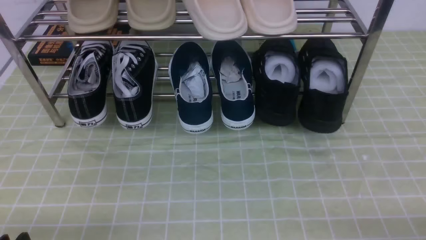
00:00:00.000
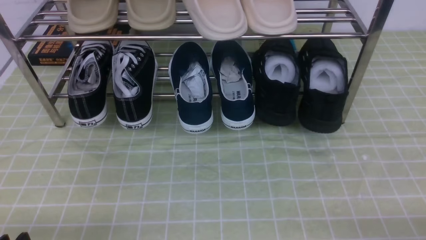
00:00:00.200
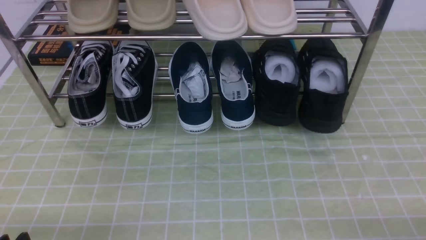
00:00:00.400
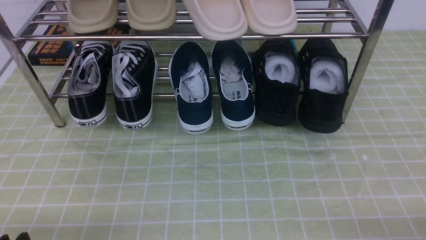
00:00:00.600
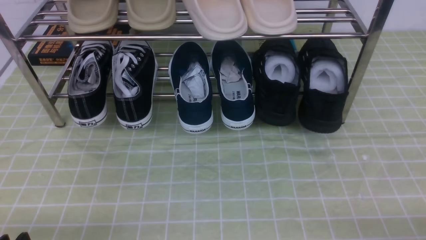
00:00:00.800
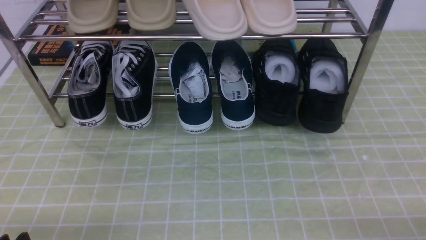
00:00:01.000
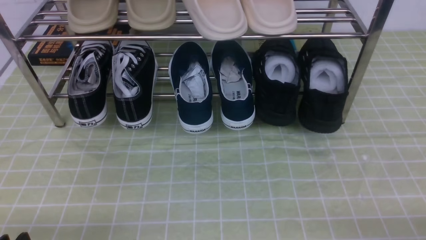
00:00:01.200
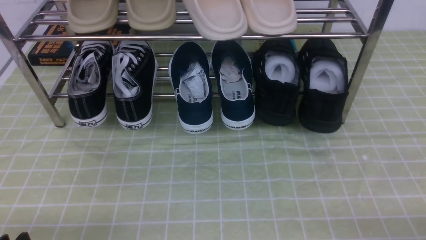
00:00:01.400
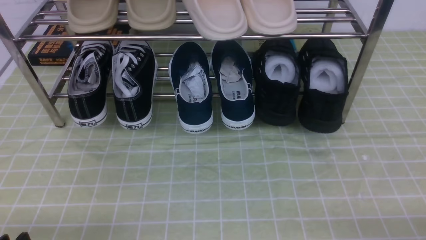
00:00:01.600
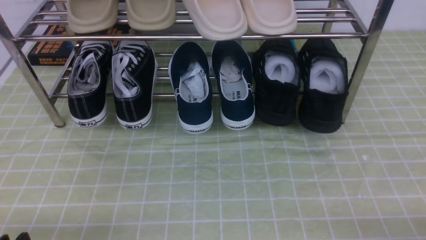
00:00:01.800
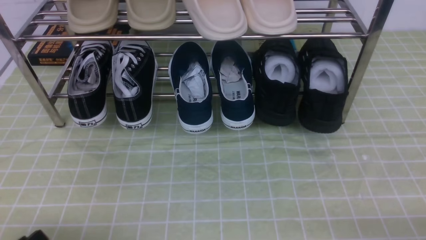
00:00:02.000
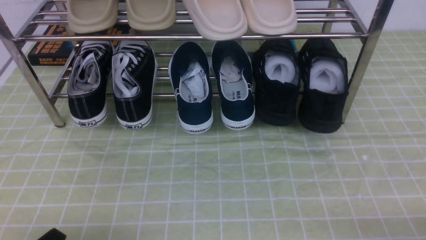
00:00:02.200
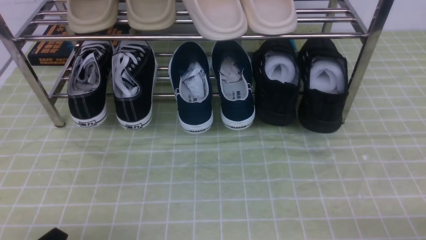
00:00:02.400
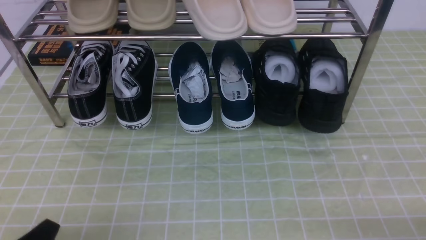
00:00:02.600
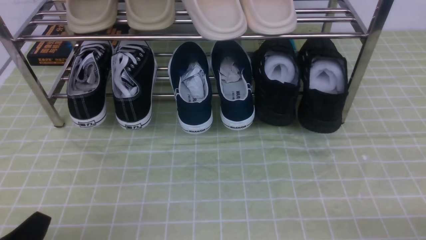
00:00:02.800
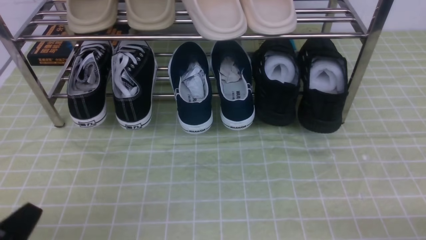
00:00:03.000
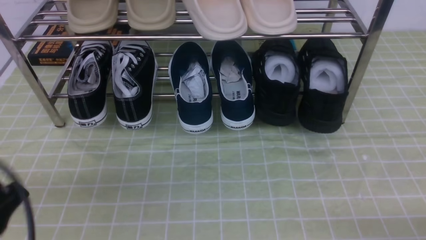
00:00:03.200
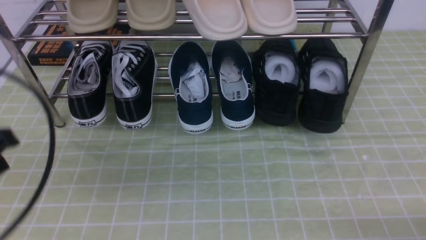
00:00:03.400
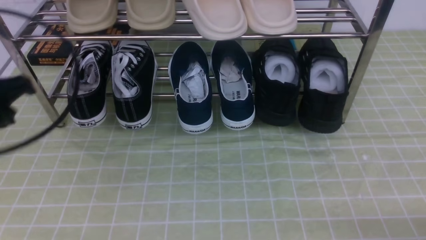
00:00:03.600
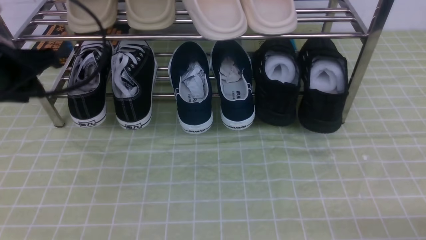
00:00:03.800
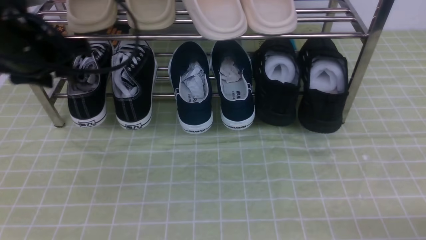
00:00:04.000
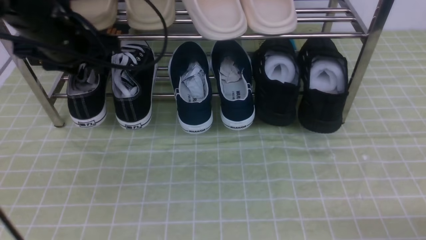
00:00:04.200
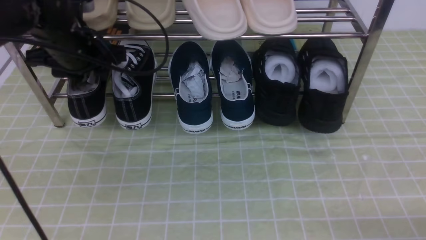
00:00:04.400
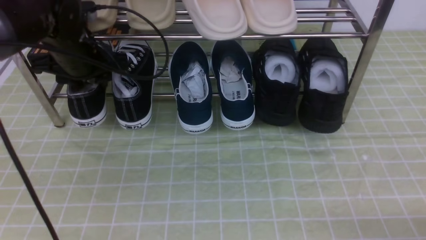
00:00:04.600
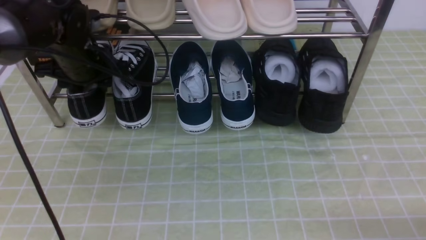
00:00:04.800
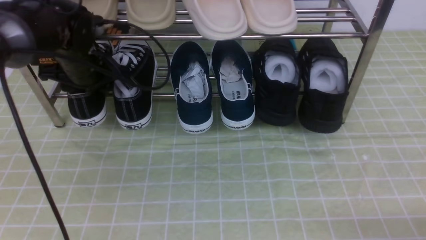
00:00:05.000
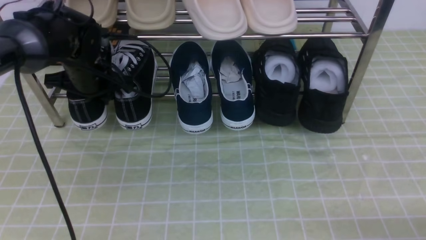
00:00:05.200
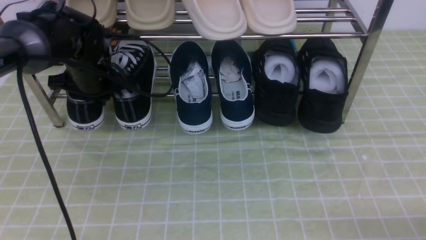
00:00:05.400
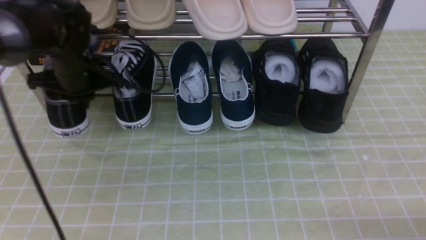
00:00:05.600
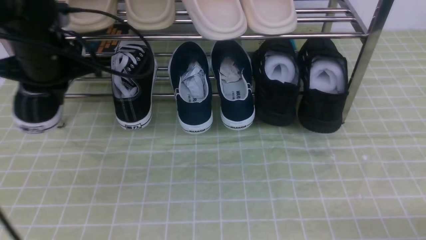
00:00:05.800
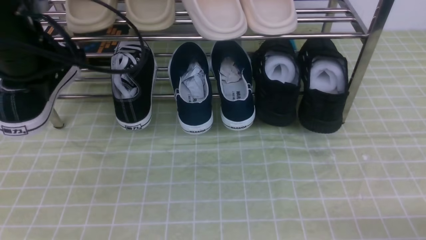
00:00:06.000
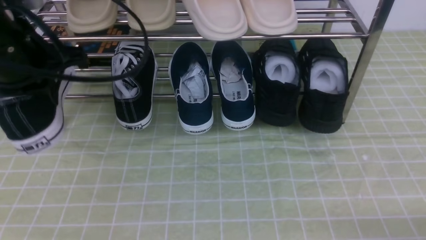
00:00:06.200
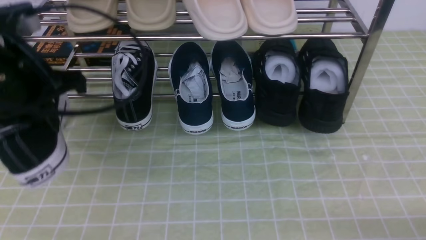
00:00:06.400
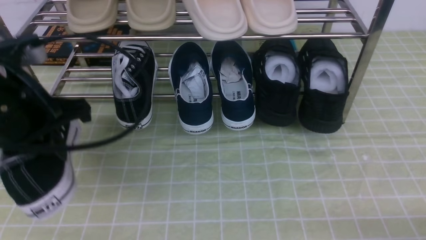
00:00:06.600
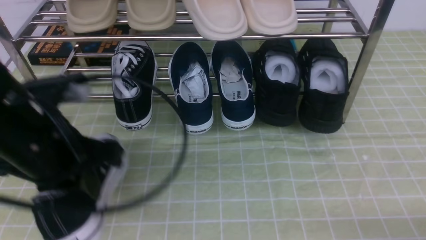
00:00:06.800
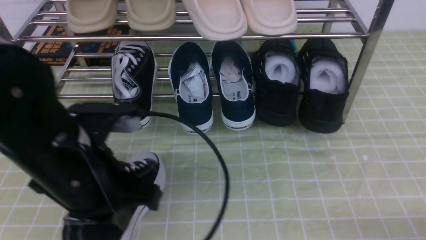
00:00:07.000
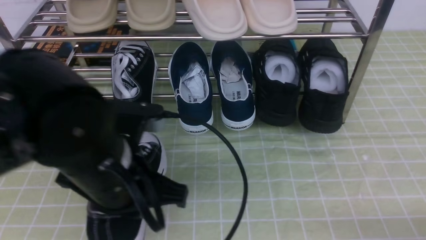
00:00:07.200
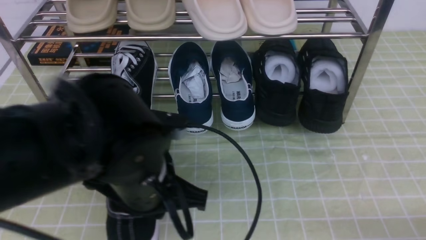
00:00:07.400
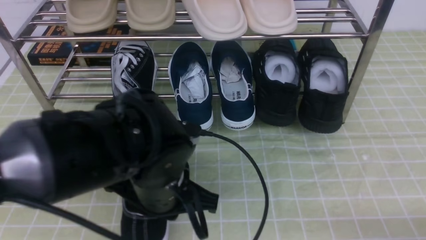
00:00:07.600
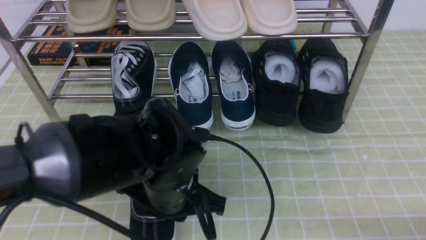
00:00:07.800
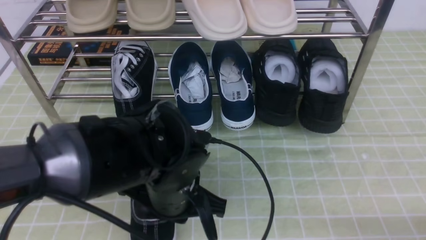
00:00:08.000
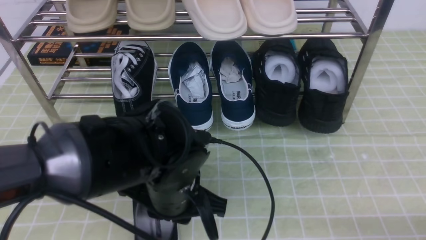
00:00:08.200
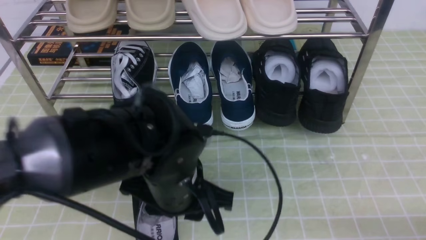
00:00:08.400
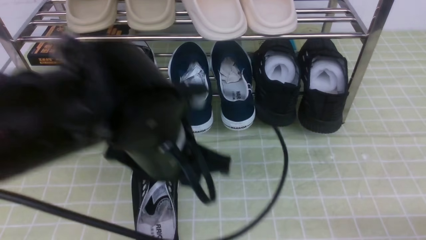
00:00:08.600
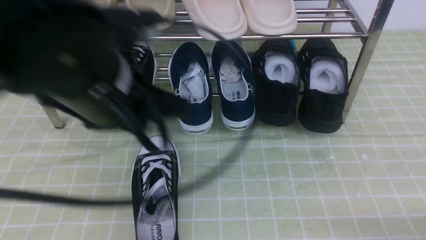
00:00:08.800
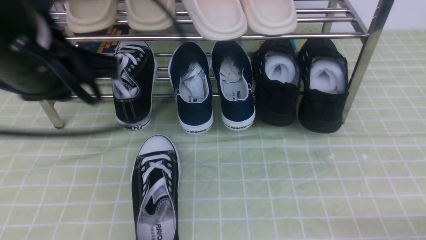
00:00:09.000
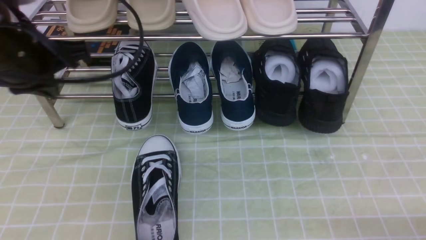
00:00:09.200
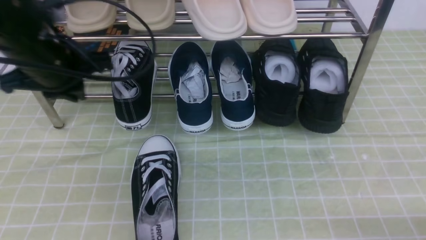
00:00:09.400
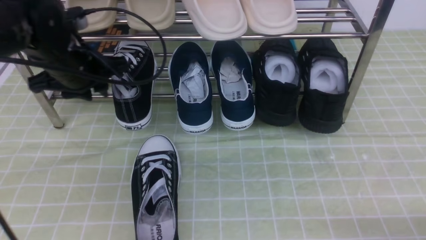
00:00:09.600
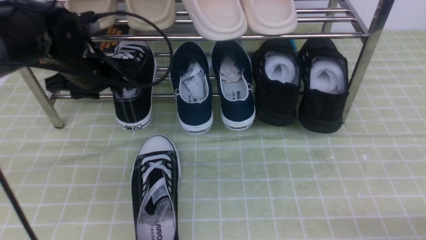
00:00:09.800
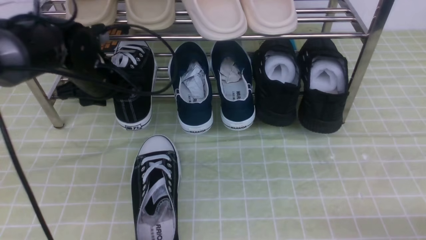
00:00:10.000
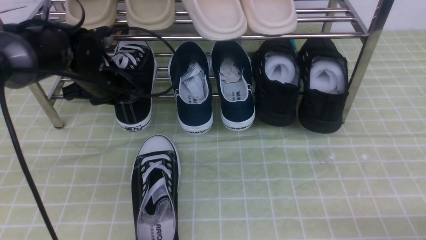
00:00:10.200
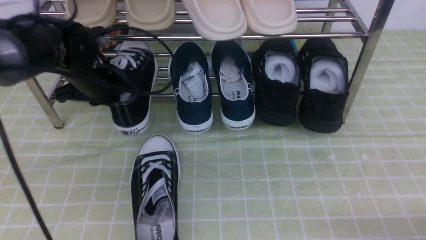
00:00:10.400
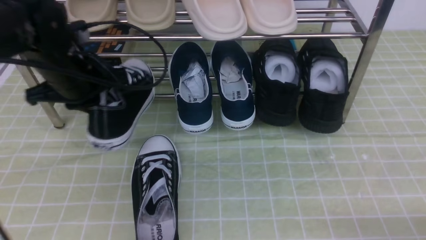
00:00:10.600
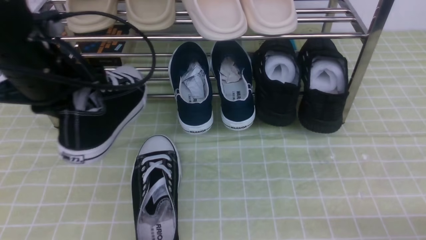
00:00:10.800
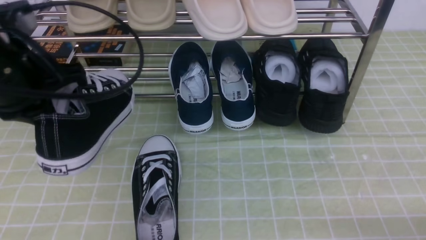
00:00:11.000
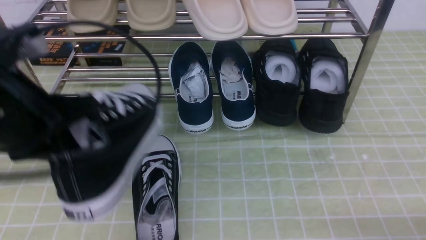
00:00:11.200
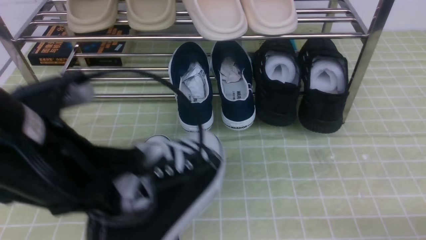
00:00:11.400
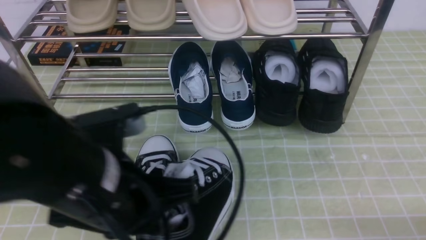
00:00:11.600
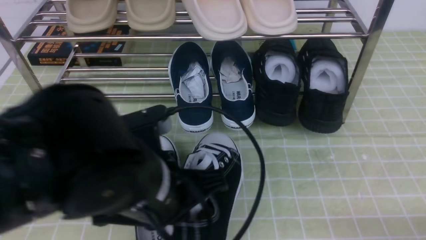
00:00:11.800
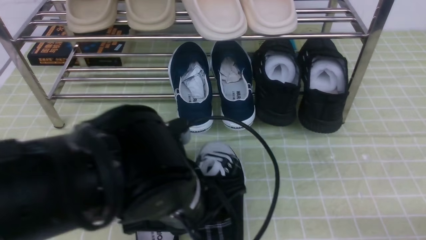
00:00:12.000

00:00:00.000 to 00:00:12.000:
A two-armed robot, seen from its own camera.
Step, 00:00:00.000 to 00:00:05.400: use the left arm to clamp a shoe on the left side of the shoe rack.
Step, 00:00:05.600 to 00:00:08.400: Use your left arm to remove the clamped shoe from the shoe rack and put it down.
Step, 00:00:08.600 to 00:00:10.200: use the left arm to clamp a shoe on the left side of the shoe rack.
00:00:00.000 to 00:00:01.600: Neither gripper changes place.
00:00:01.600 to 00:00:03.000: The left gripper is displaced upward by some 5 cm, and closes.
00:00:03.000 to 00:00:04.400: The left gripper travels forward by roughly 30 cm, and opens up.
00:00:04.400 to 00:00:06.000: The left gripper moves backward and upward, some 10 cm, and closes its fingers.
00:00:06.000 to 00:00:07.600: The left gripper shifts approximately 25 cm to the right, downward and backward.
00:00:07.600 to 00:00:09.000: The left gripper moves upward and to the left, some 15 cm, and opens and closes again.
00:00:09.000 to 00:00:10.400: The left gripper travels forward and downward by some 20 cm, and opens and closes again.
00:00:10.400 to 00:00:12.000: The left gripper moves backward and to the right, about 25 cm.

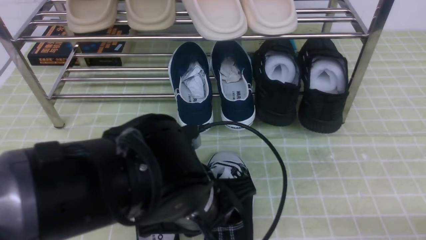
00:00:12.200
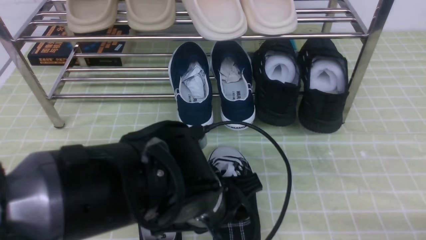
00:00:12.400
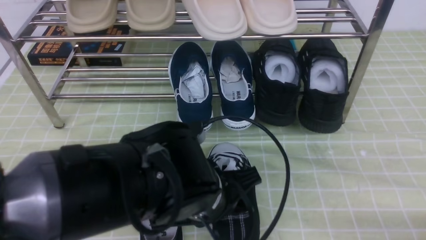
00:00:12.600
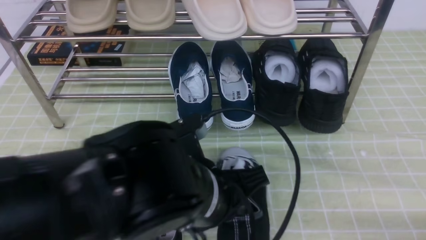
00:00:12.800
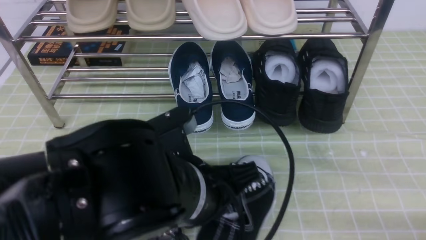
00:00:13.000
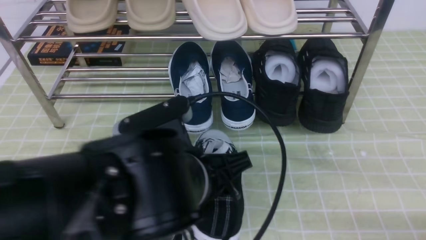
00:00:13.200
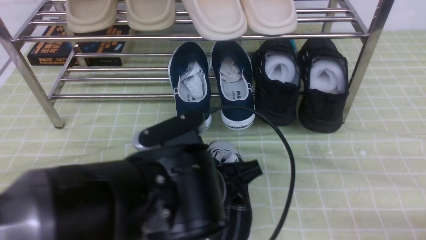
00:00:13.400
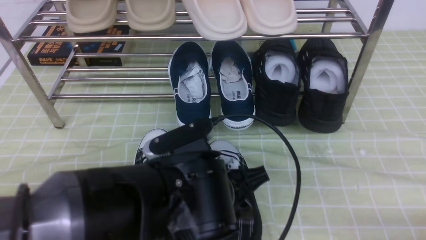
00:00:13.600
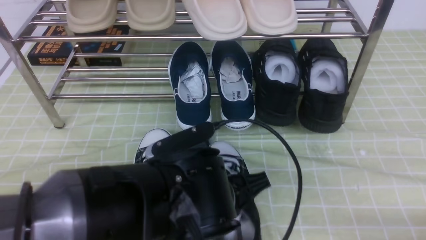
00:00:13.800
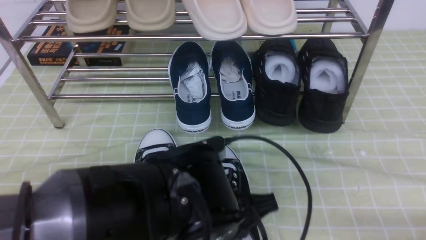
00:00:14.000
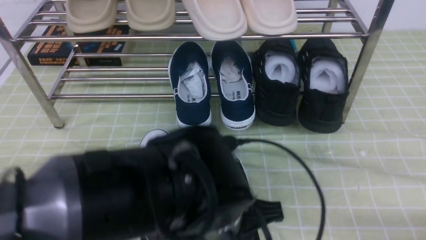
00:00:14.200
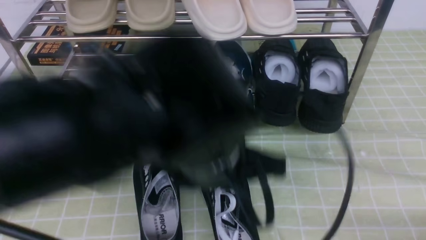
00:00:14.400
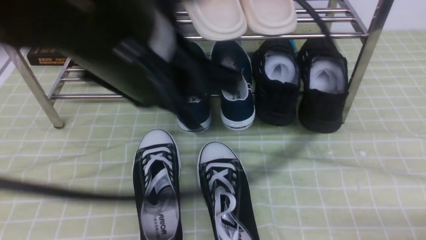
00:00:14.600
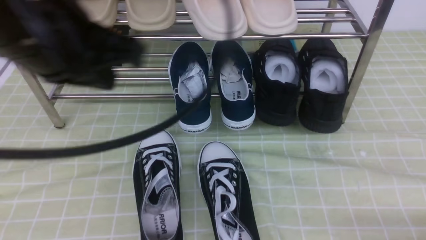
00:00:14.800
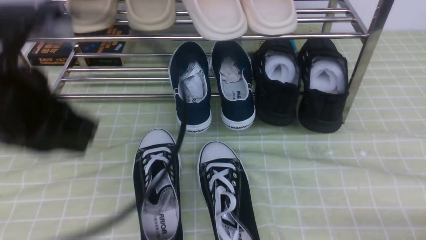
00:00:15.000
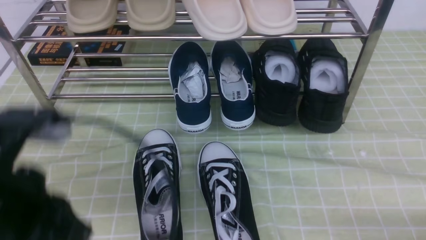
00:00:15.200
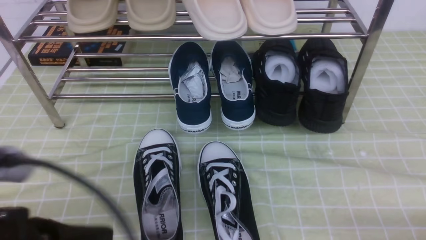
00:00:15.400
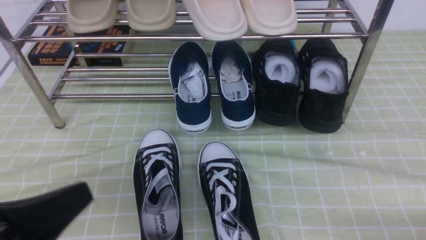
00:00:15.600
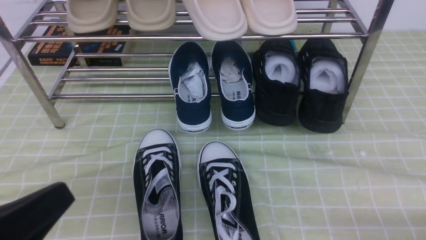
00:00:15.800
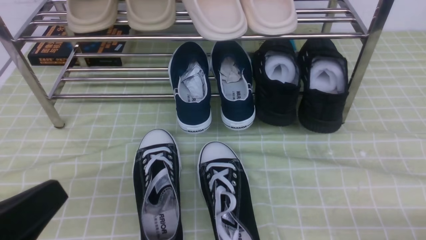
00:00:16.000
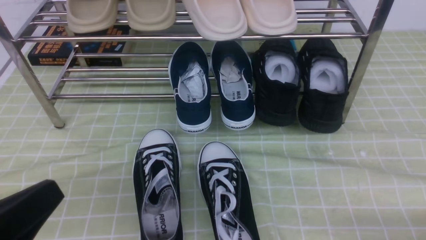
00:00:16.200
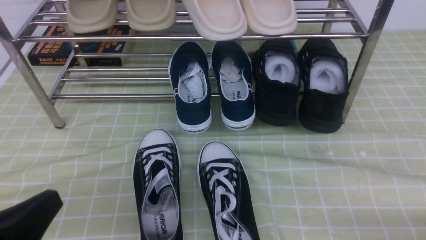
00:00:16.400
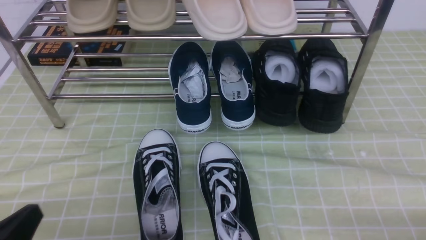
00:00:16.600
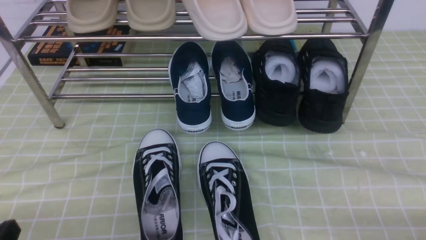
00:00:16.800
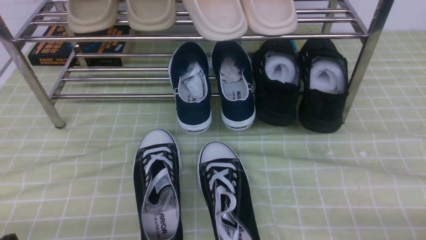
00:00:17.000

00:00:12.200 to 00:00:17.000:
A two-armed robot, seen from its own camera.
Step, 00:00:12.200 to 00:00:14.200: Use your left arm to remove the clamped shoe from the shoe rack and put it down.
00:00:12.200 to 00:00:13.800: The grippers make only small movements.
00:00:13.800 to 00:00:15.400: The left gripper shifts approximately 20 cm to the left and backward, and opens, then closes again.
00:00:15.400 to 00:00:17.000: The left gripper heads downward and to the left, covering roughly 15 cm.
